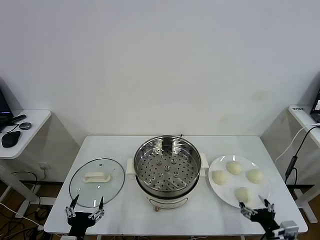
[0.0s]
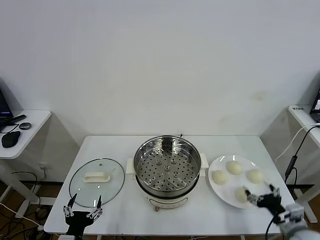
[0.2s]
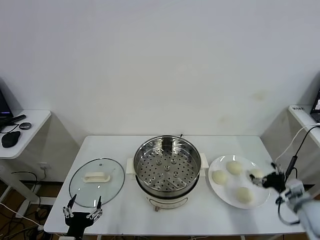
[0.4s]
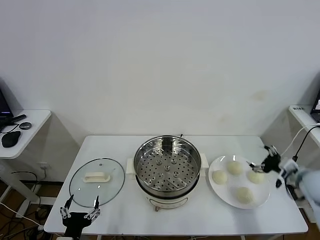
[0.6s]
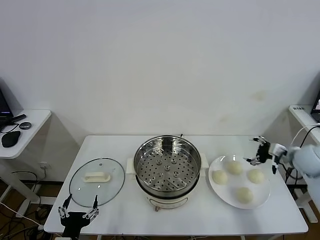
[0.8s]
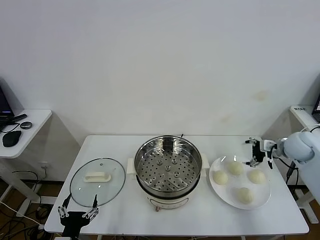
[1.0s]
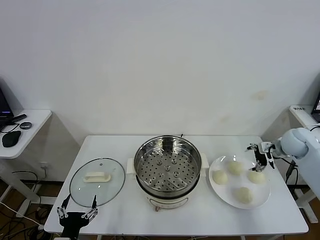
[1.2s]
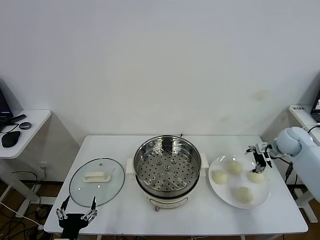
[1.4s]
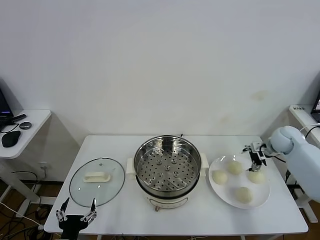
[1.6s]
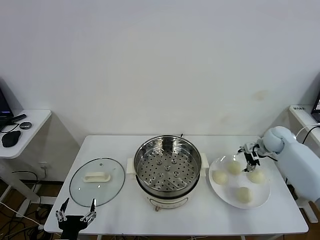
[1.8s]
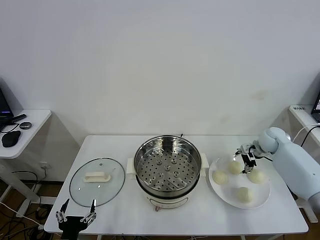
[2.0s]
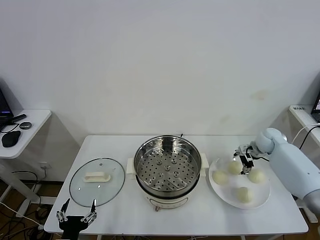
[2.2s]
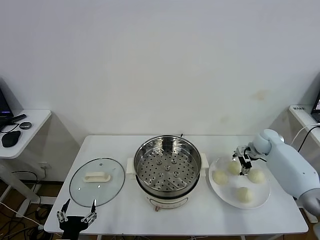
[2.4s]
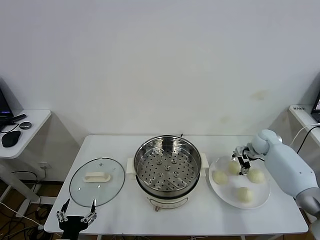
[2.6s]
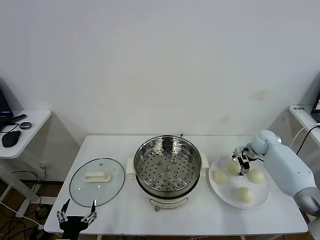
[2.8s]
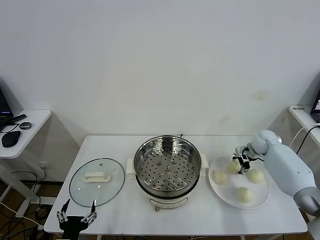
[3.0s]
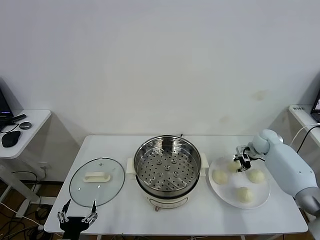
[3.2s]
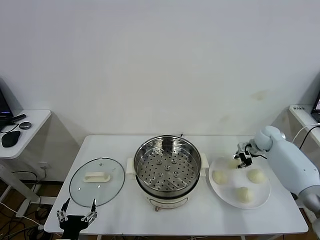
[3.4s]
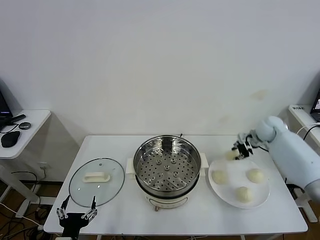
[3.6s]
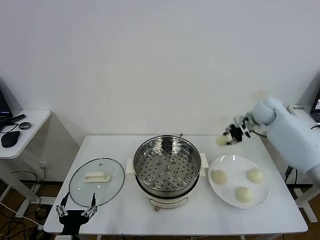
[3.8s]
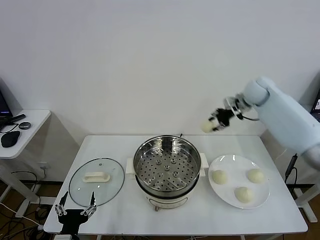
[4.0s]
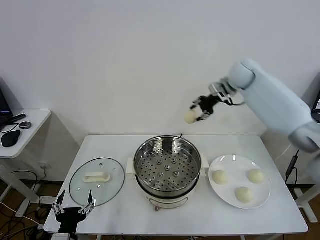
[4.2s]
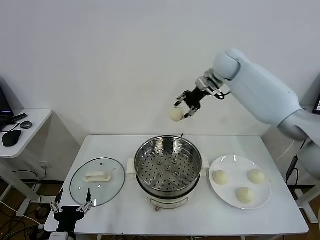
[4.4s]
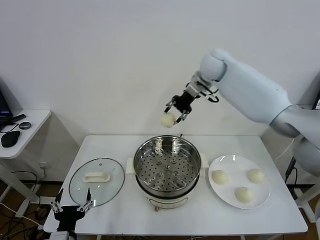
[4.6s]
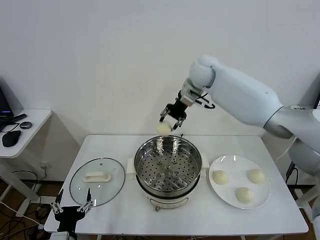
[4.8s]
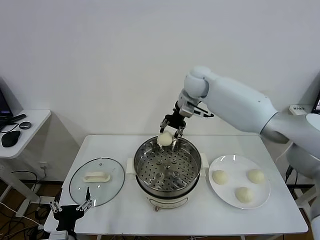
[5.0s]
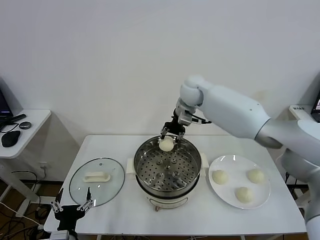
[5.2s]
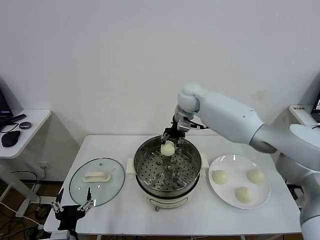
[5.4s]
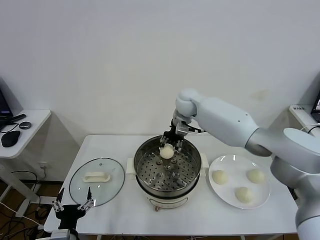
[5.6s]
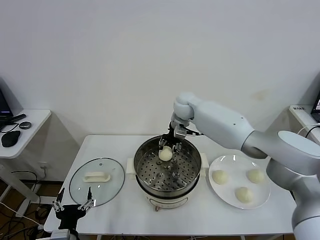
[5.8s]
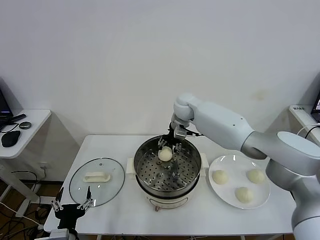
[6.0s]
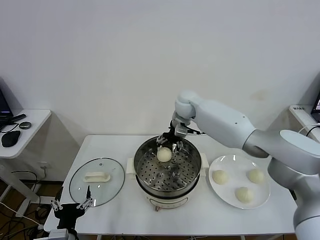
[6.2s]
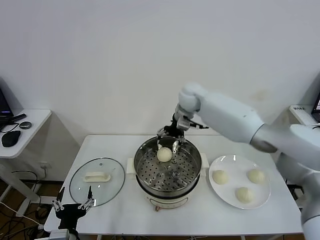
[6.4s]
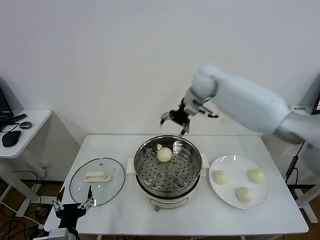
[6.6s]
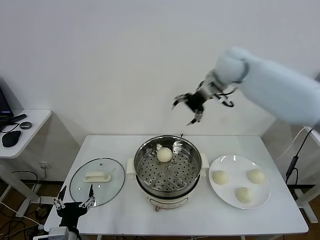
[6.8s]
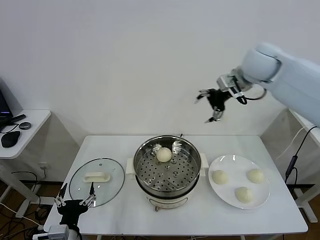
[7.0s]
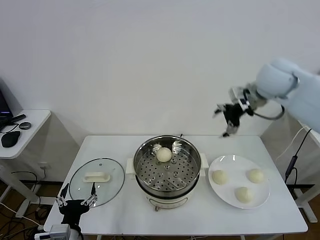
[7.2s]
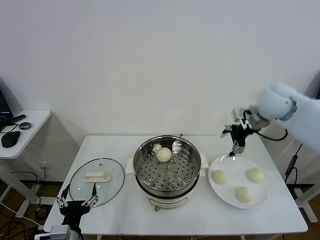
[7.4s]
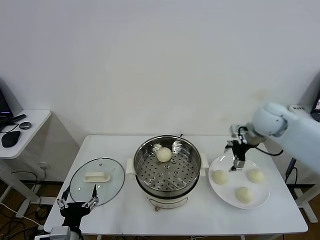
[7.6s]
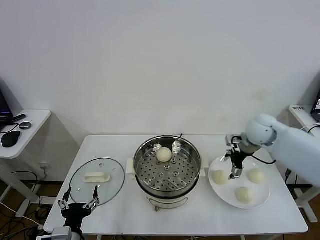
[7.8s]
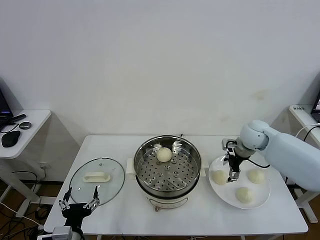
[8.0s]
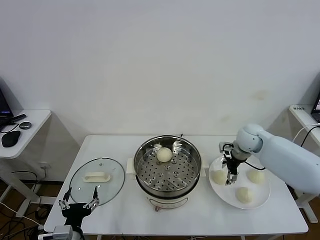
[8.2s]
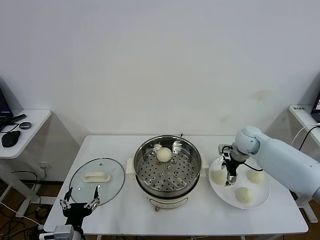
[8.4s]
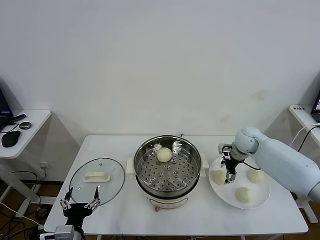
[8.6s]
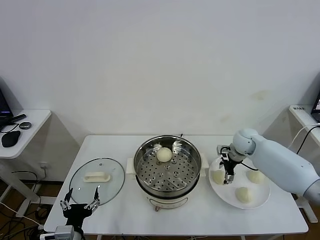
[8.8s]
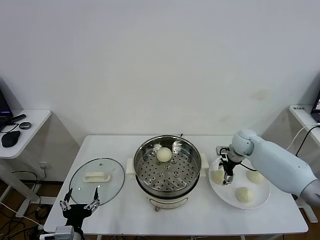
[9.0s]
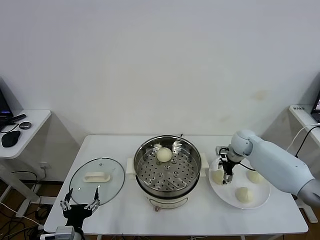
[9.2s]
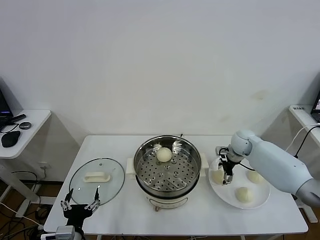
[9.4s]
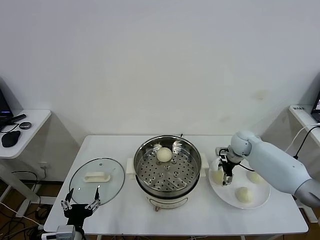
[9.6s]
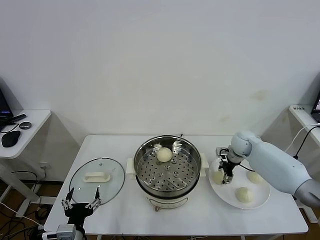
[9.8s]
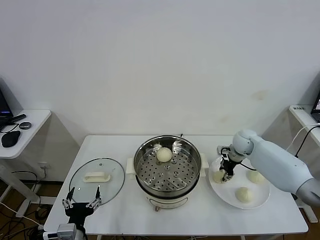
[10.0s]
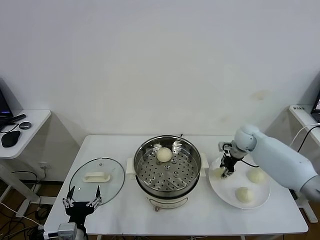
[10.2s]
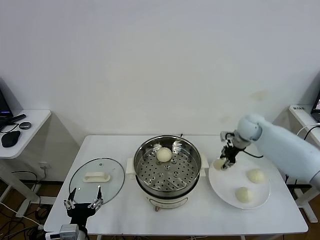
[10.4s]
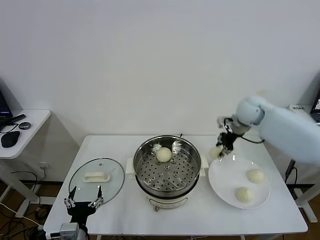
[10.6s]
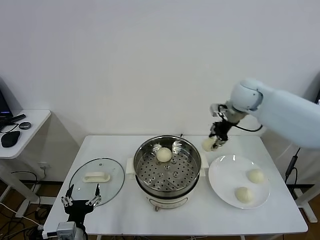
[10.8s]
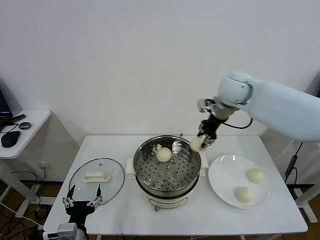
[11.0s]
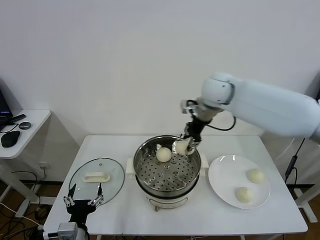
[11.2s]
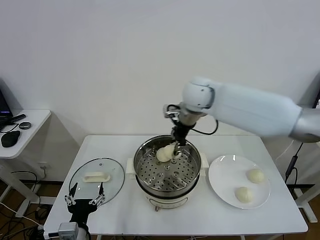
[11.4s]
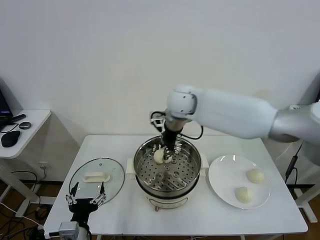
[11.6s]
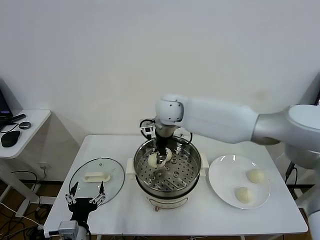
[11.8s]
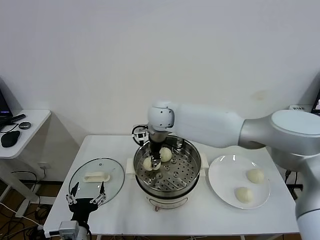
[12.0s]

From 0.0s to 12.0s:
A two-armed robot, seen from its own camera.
Task of the whole recording: take steamed baozi put them in steamer.
Step, from 0.0s to 3.0s: Grasp the baozi in the plate with right gripper.
Step, from 3.4s to 6.2s: Place the baozi on the steamer with right gripper.
Step, from 6.4s to 9.8s: Grasp the baozi in the plate with right gripper.
From 1.6s to 3.0s: The right gripper shifts by roughly 5 cm, and closes its fingers.
From 3.0s to 4.4s: The right gripper shifts some 35 cm upward and to the left.
From 4.4s to 6.0s: The right gripper moves downward and to the left, about 15 cm, and opens.
From 6.0s to 7.6s: The right gripper shifts about 25 cm to the right and backward.
From 7.6s to 9.0s: The right gripper shifts about 15 cm downward.
From 9.0s to 10.4s: The right gripper goes about 10 cm upward, and closes.
From 10.4s to 12.0s: The right gripper moves to the left, about 35 cm.

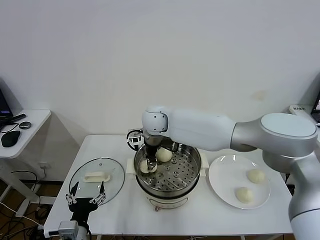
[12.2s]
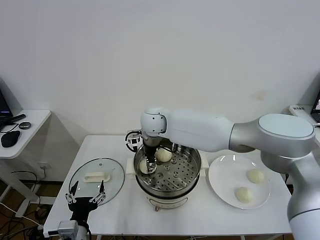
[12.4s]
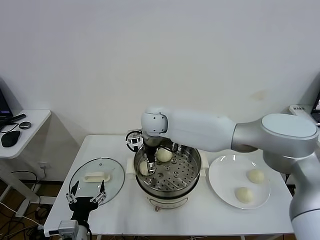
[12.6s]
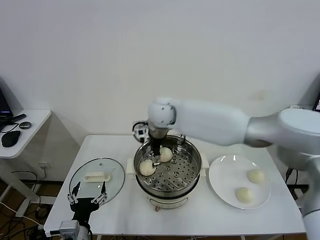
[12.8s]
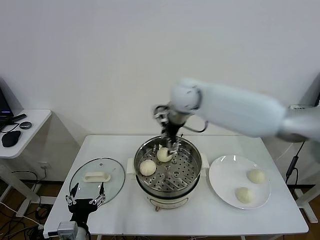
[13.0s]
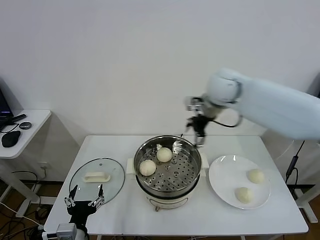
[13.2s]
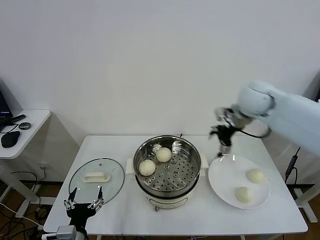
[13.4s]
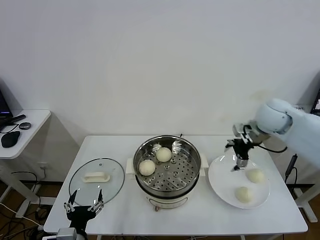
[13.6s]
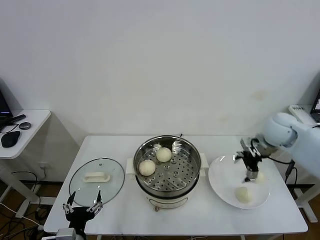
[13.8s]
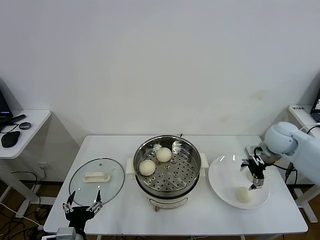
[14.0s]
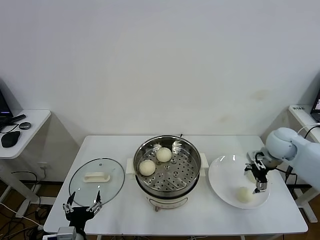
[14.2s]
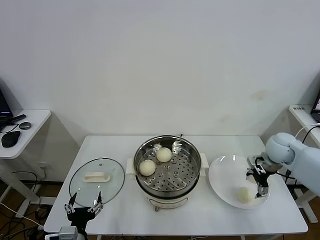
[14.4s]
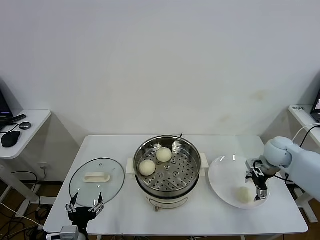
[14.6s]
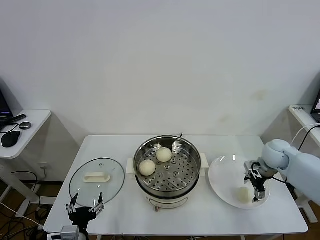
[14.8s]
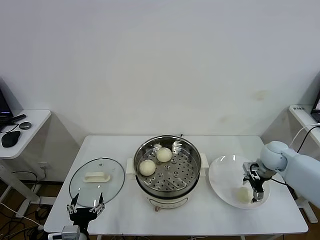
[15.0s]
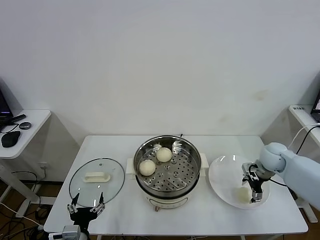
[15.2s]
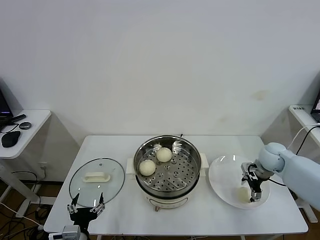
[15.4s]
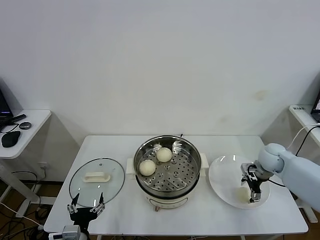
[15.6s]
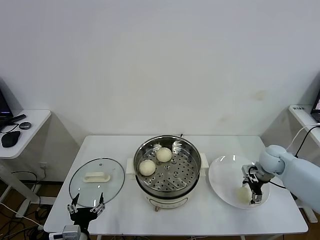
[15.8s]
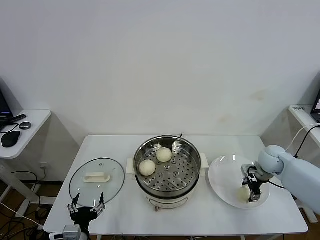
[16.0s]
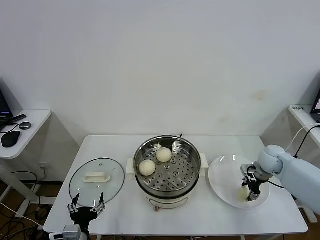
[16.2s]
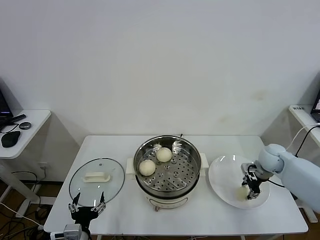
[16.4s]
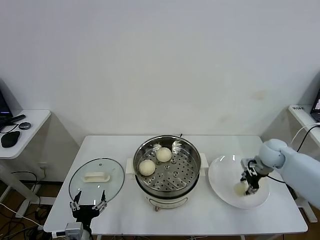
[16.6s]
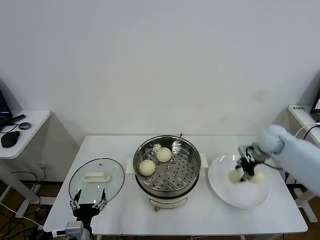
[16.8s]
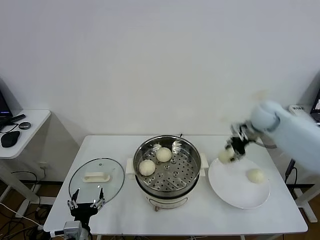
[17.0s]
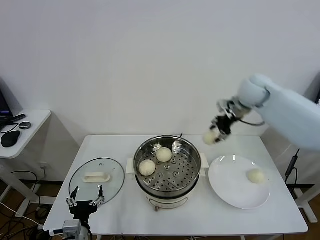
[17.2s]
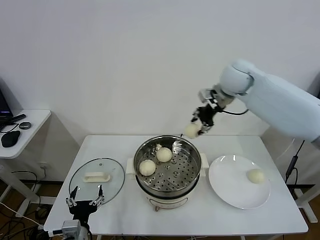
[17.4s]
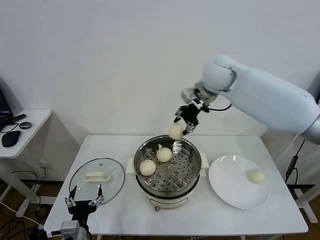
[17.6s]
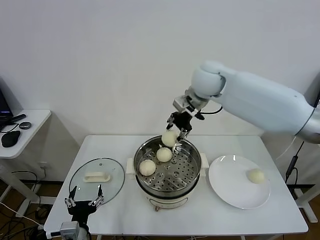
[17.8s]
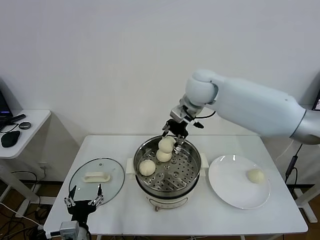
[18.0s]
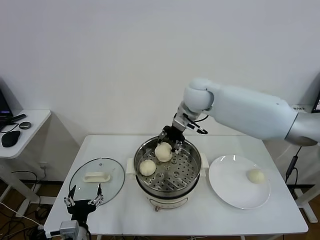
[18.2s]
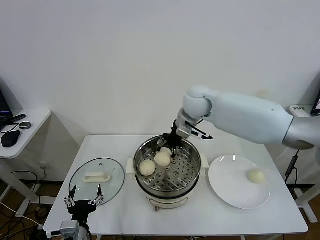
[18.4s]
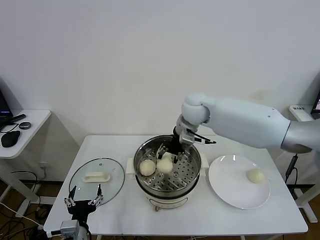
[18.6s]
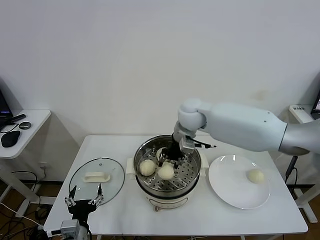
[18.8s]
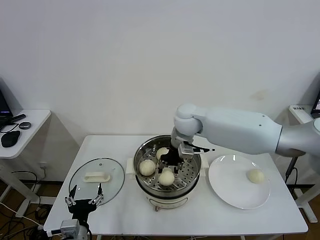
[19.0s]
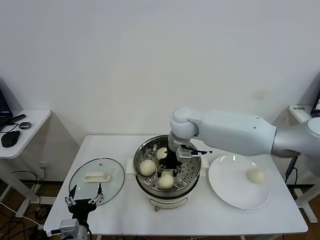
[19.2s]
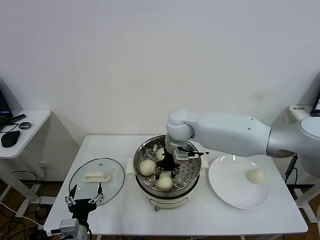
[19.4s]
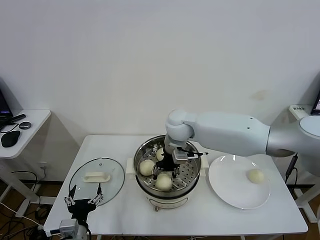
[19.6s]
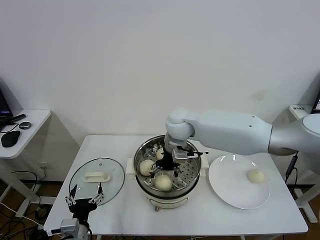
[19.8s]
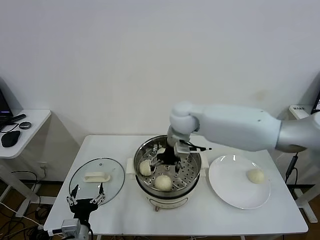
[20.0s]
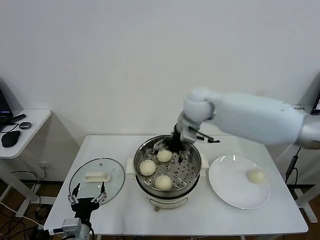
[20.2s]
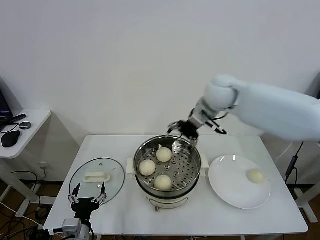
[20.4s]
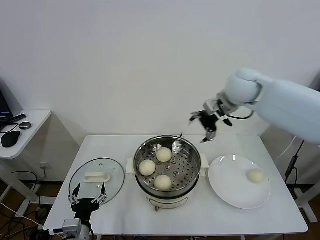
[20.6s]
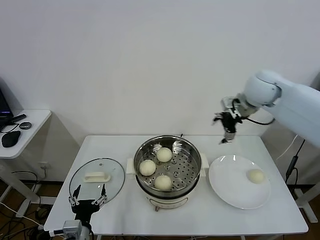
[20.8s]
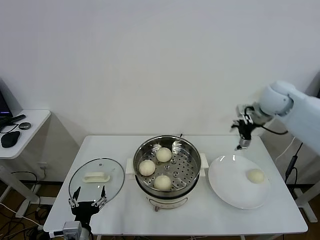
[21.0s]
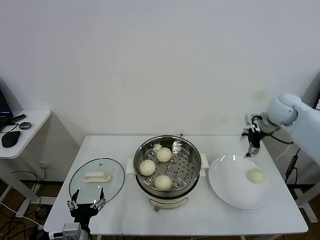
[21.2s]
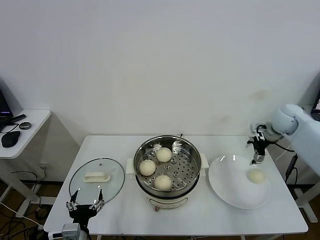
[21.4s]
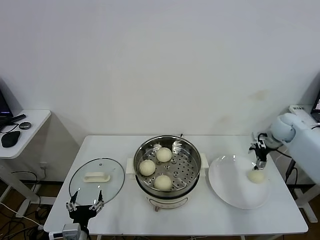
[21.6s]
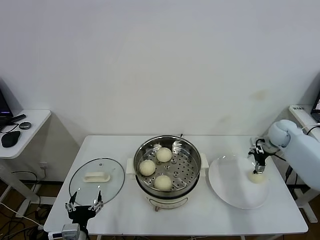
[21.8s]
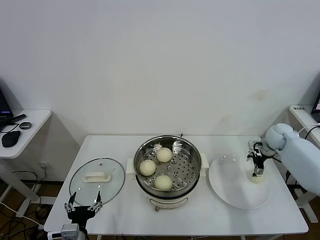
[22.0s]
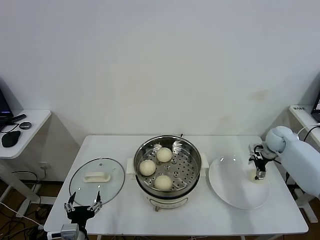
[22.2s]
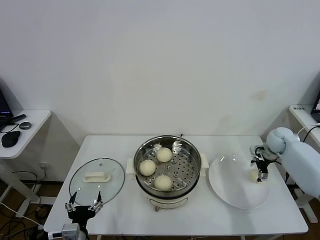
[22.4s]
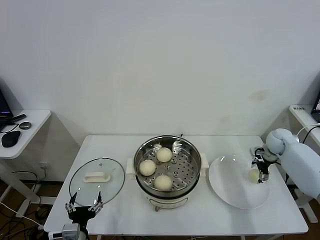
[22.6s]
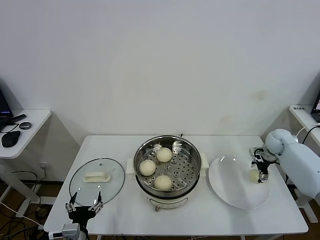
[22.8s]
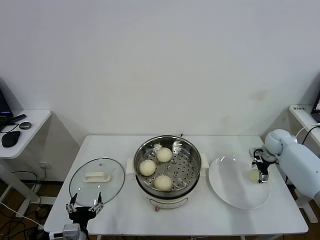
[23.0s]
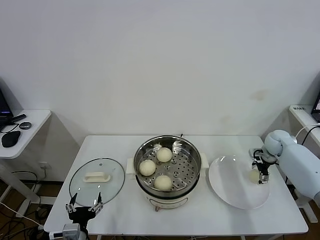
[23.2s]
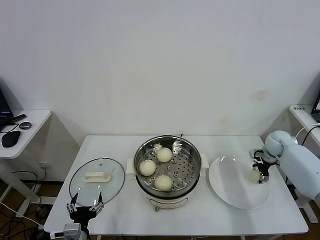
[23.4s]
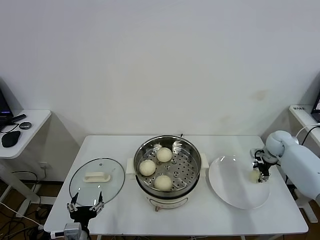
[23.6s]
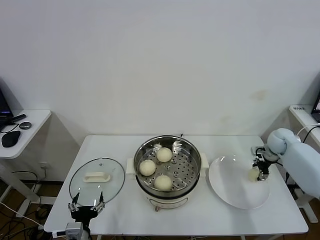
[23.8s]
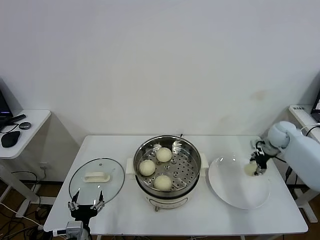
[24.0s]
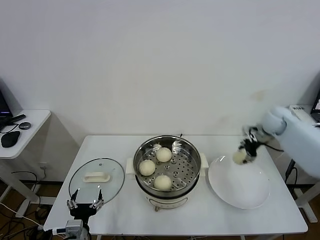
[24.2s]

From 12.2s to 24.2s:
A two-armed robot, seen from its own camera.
Task of the whole recording: take steamed baozi put them in steamer.
Step, from 12.8s to 16.2s: Grasp the baozi in the plate with right gripper.
Step, from 16.4s to 19.8s: Place the baozi on the steamer with right gripper.
Step, from 20.2s to 23.6s: Grasp the baozi in the plate with right gripper.
From 12.2s to 13.8s: The right gripper shifts some 40 cm to the right, and opens its fingers.
From 13.8s to 15.2s: The right gripper travels downward by approximately 10 cm.
From 15.2s to 16.6s: The right gripper closes.
From 16.6s to 18.2s: The right gripper shifts some 35 cm to the left and upward.
From 18.2s to 19.8s: The right gripper travels downward and to the left by about 10 cm, and opens up.
From 19.8s to 21.2s: The right gripper shifts approximately 35 cm to the right.
From 21.2s to 22.6s: The right gripper goes some 15 cm downward and to the right.
From 22.6s to 24.2s: The right gripper travels upward and to the left by some 10 cm, and closes its fingers.
